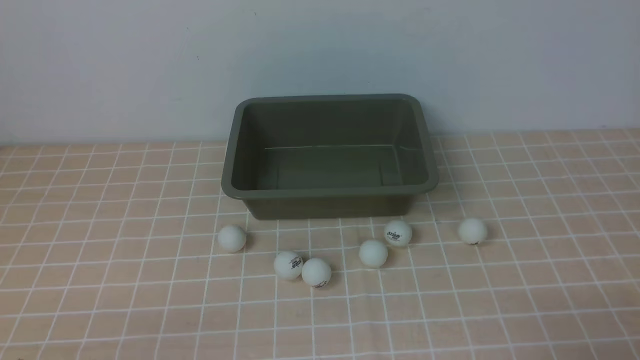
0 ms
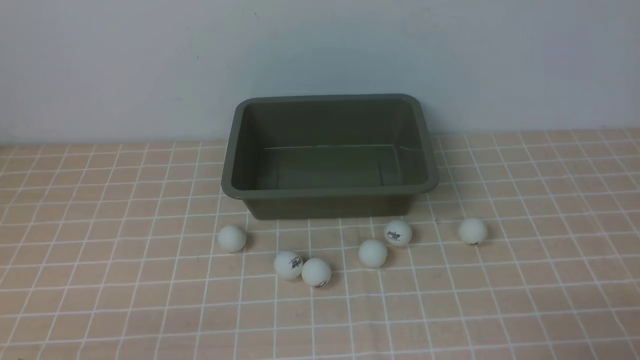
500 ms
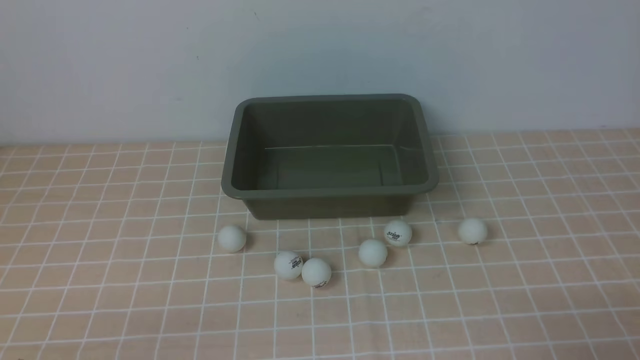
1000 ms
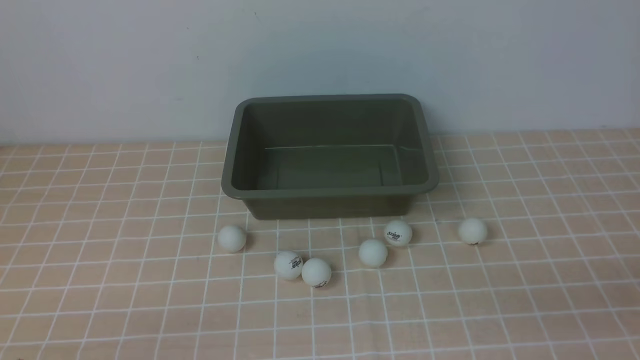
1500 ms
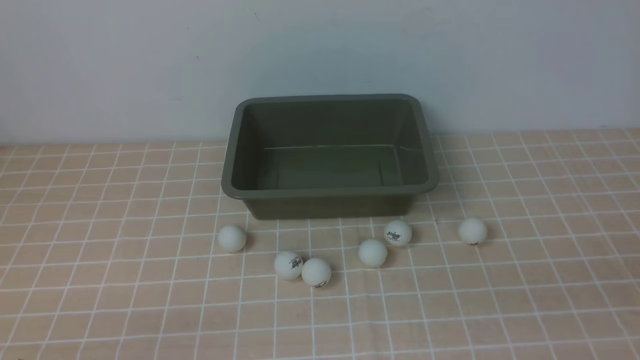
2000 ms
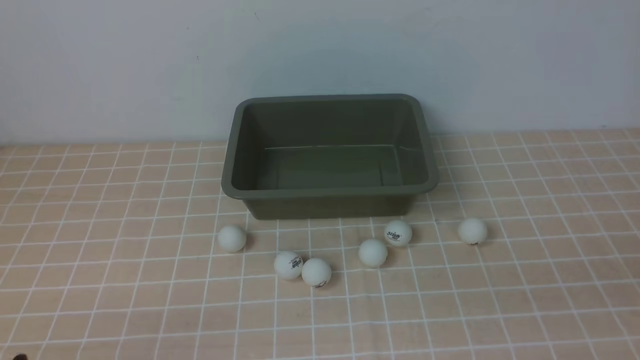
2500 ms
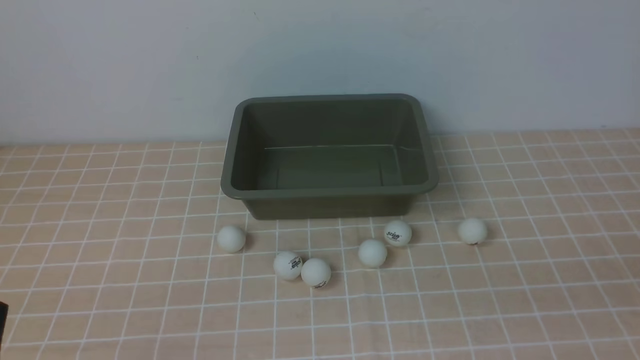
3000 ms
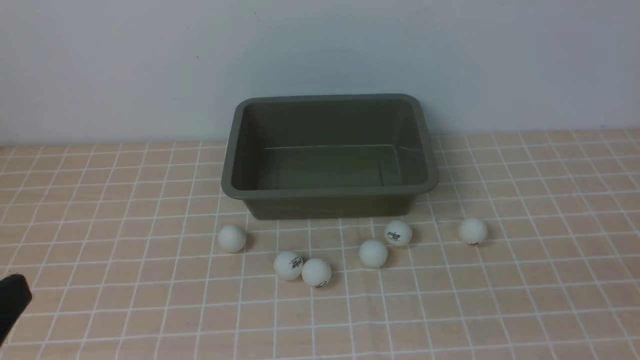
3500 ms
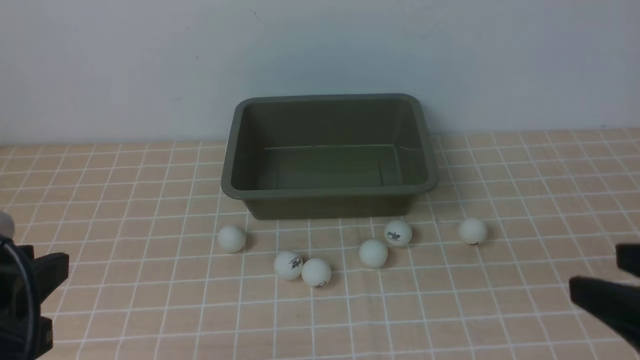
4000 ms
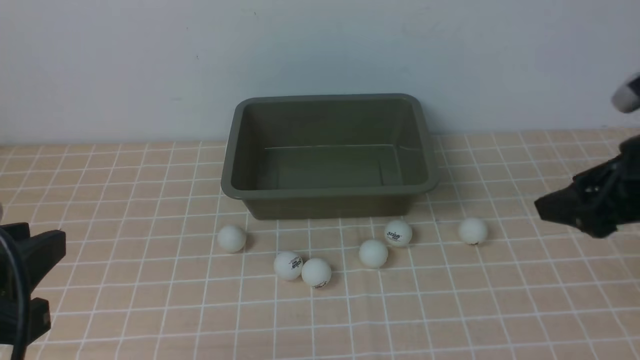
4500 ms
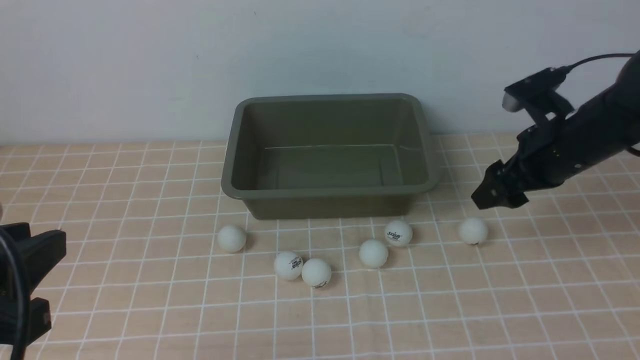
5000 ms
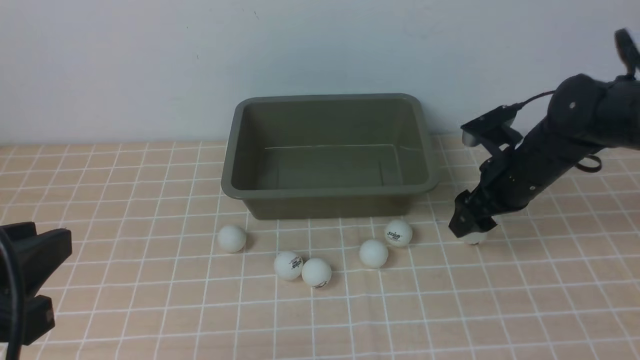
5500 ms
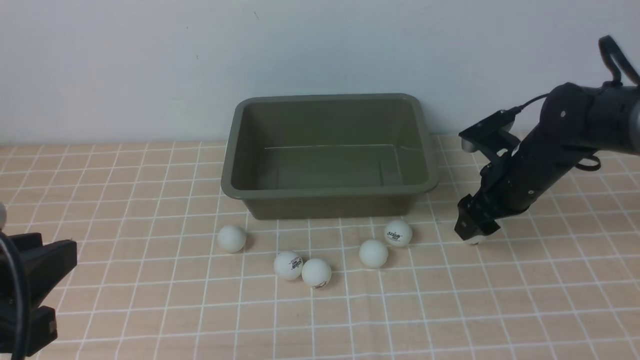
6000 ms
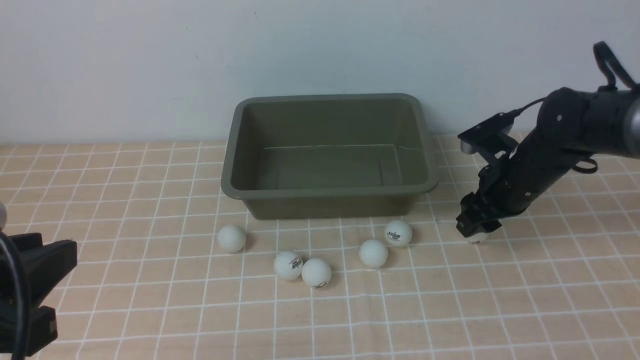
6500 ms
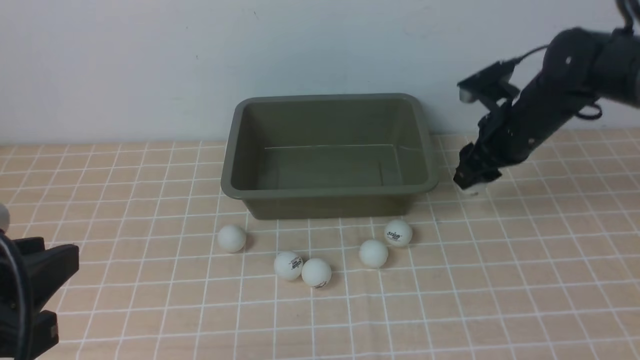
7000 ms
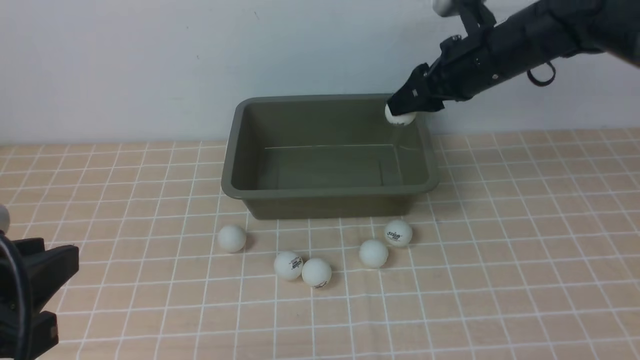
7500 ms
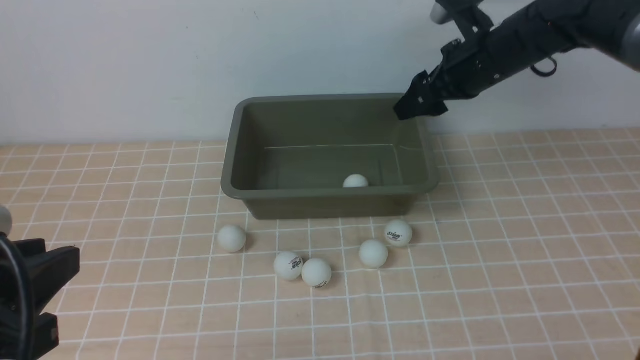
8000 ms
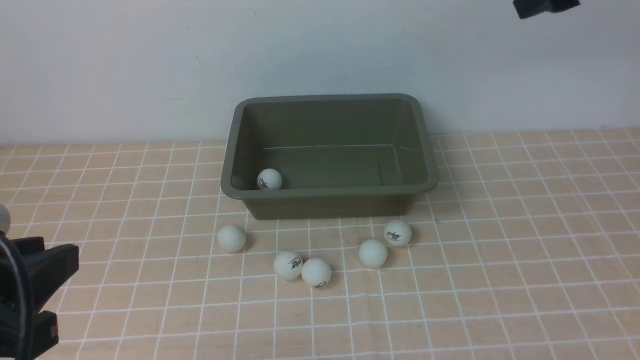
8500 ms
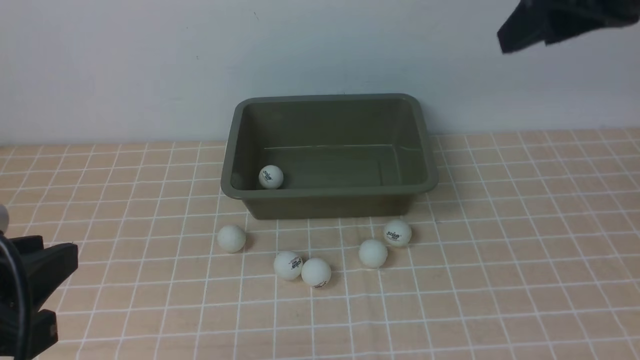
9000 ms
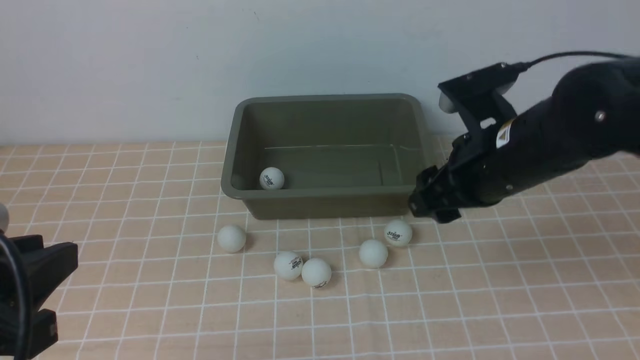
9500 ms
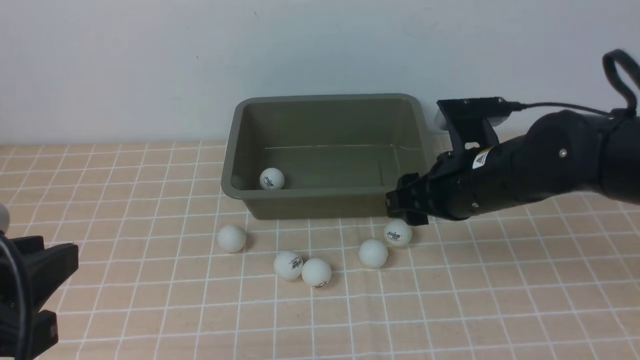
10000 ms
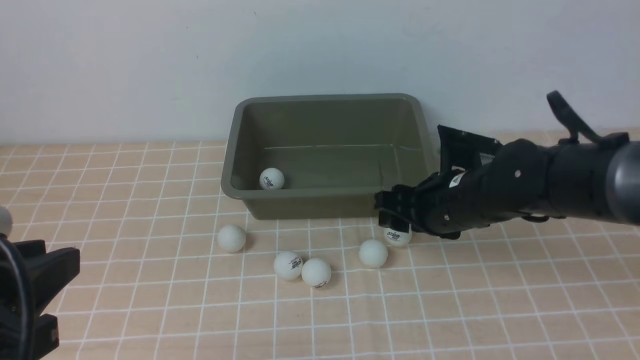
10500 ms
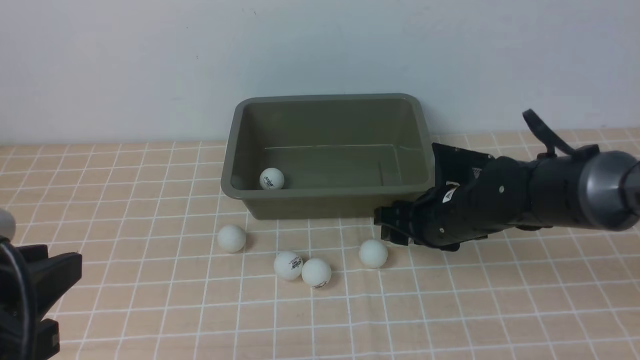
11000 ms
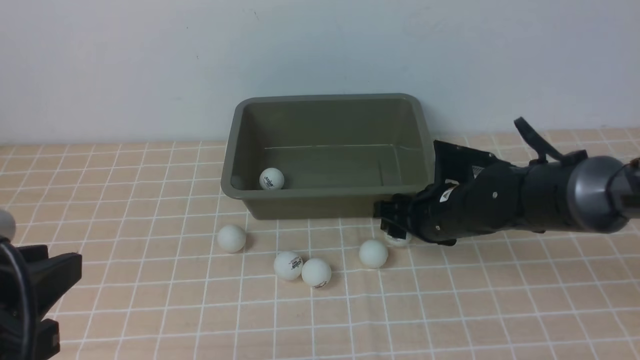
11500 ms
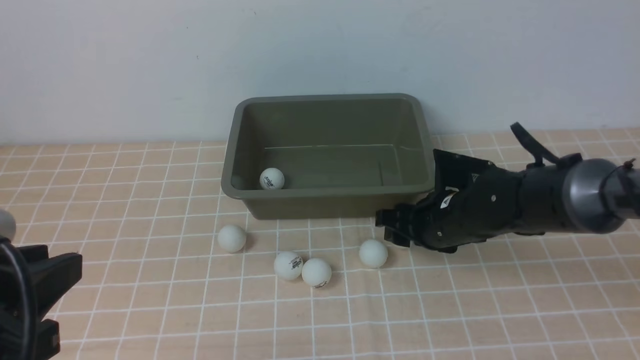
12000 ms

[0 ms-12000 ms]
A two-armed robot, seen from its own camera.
Step, 0 ms to 6500 ms: use the right arm to clamp the table tennis ball closest to it.
Step, 7000 ms to 8000 ms: use the right arm to put the table tennis ball into the box.
2000 ms to 4000 ms: The left gripper travels upward by approximately 15 cm; the right gripper shifts roughly 10 cm forward.
4000 ms to 6000 ms: The right gripper heads forward and downward, covering roughly 30 cm.
6000 ms to 8000 ms: The right gripper shifts approximately 15 cm upward and forward, and closes, then opens again.
8000 ms to 10000 ms: The right gripper shifts about 15 cm backward and downward.
10000 ms to 12000 ms: The right gripper heads downward, covering roughly 10 cm.

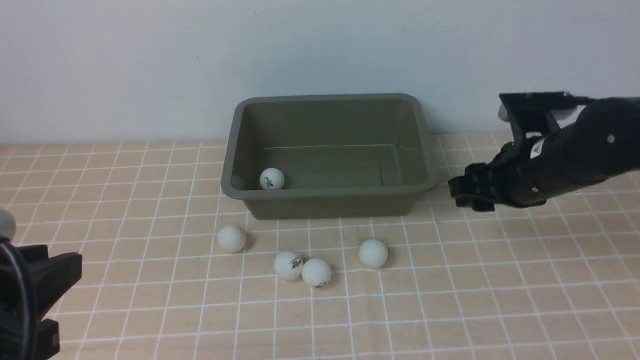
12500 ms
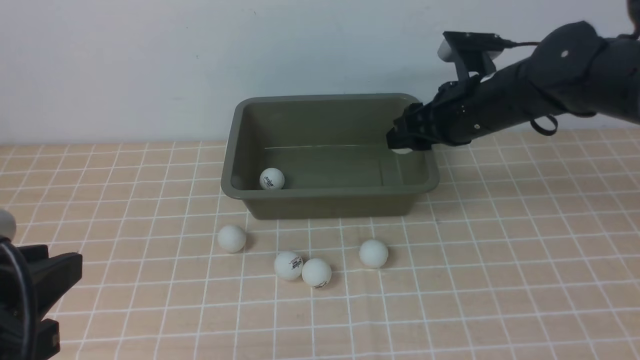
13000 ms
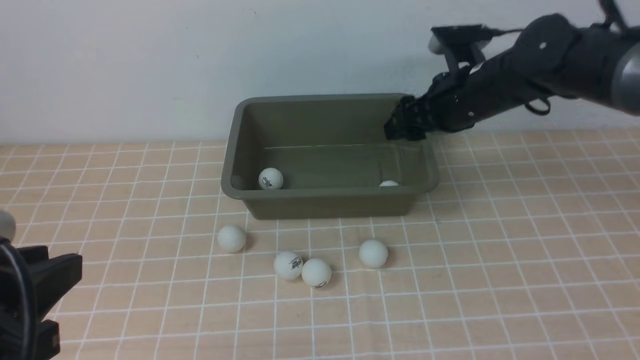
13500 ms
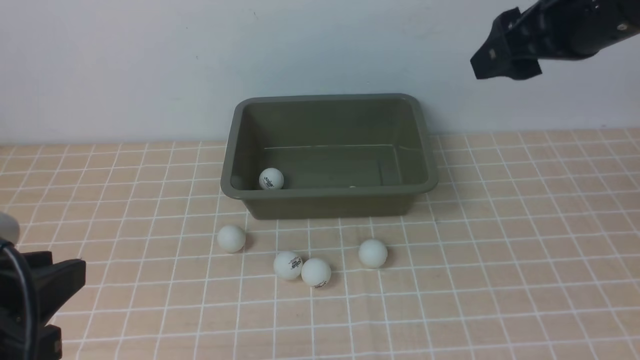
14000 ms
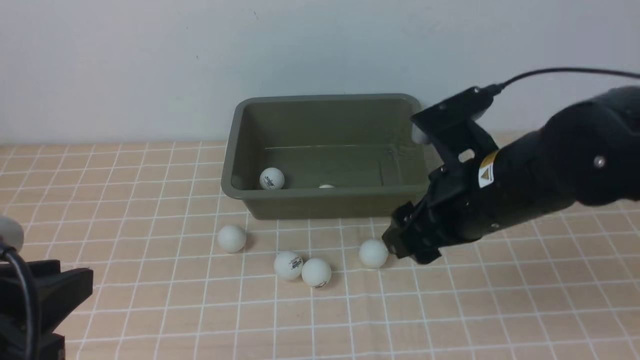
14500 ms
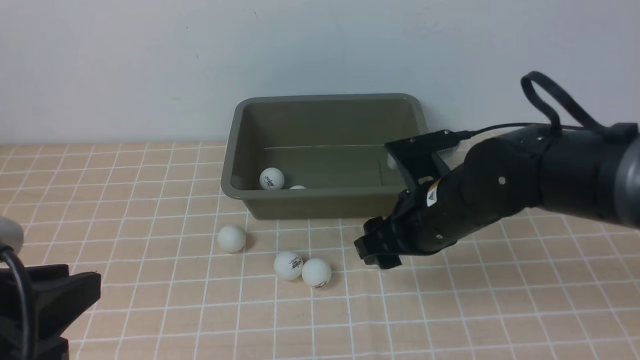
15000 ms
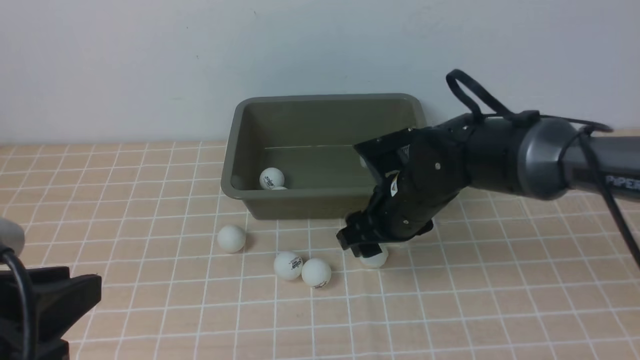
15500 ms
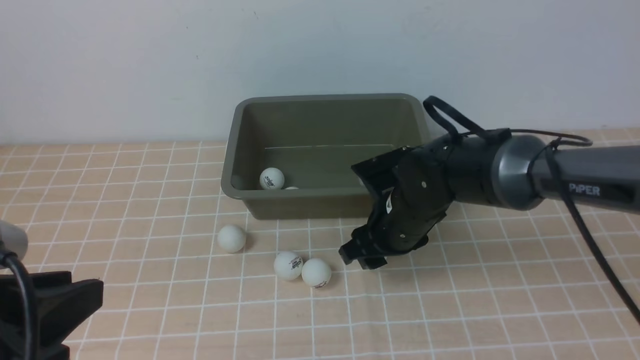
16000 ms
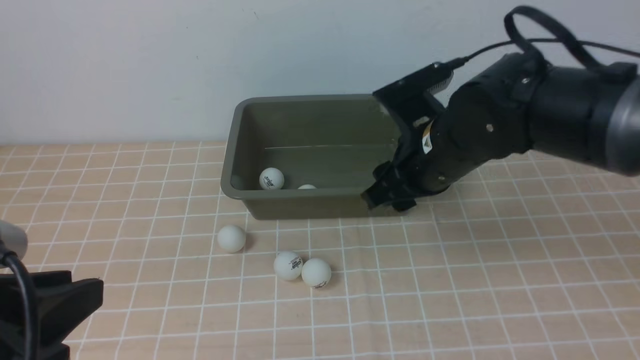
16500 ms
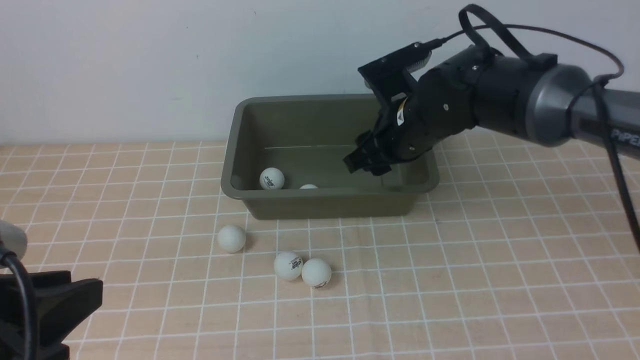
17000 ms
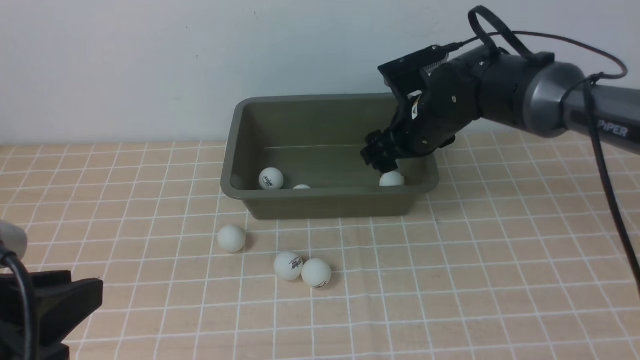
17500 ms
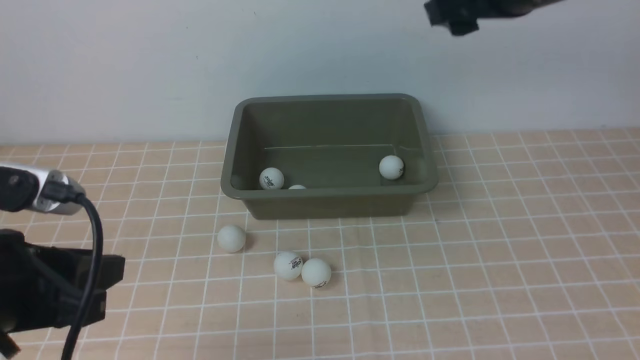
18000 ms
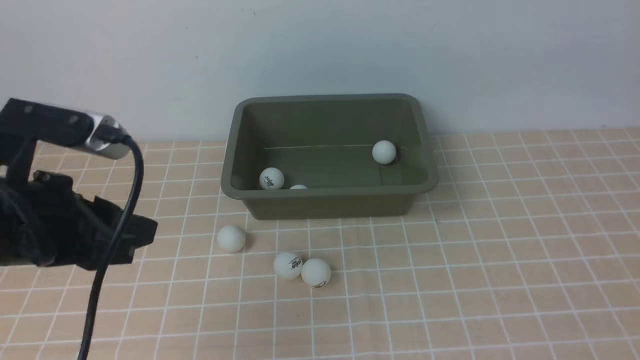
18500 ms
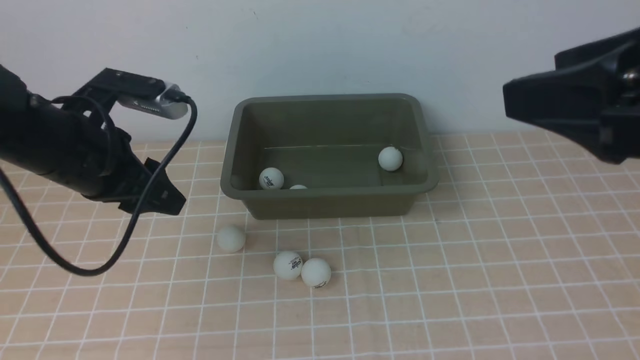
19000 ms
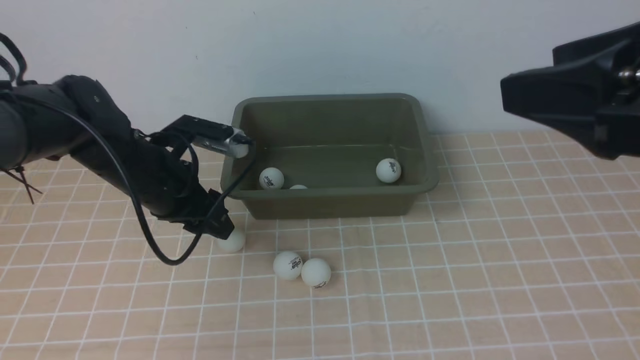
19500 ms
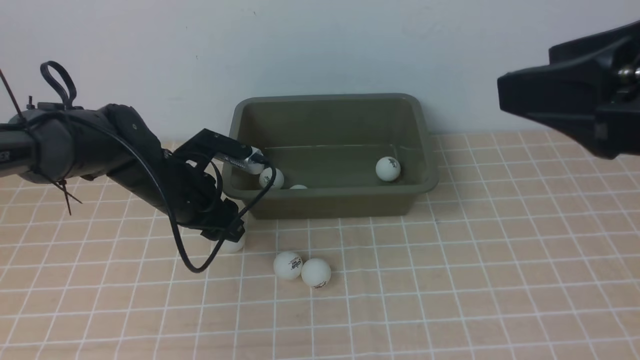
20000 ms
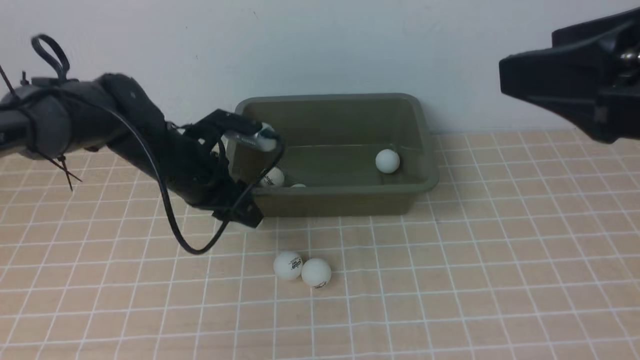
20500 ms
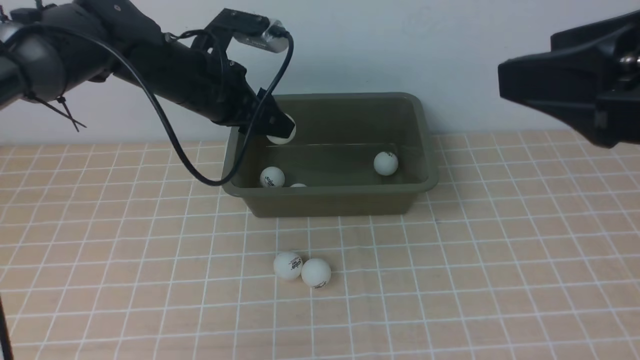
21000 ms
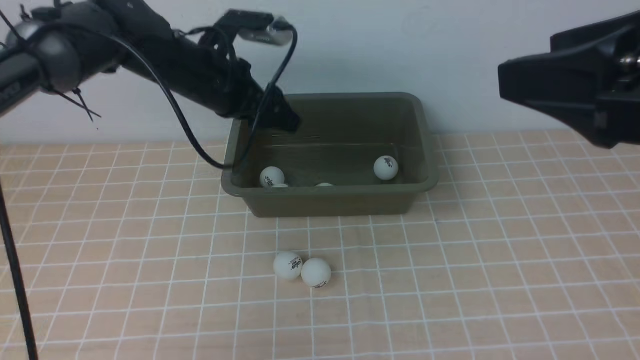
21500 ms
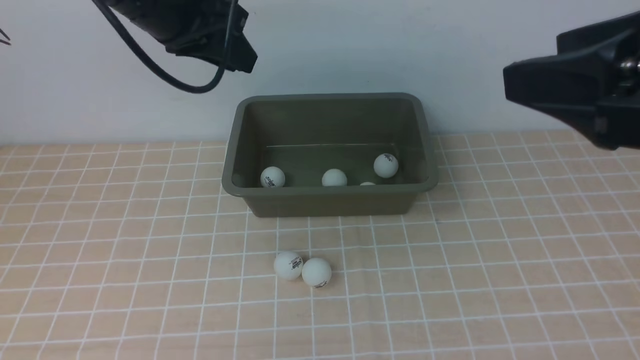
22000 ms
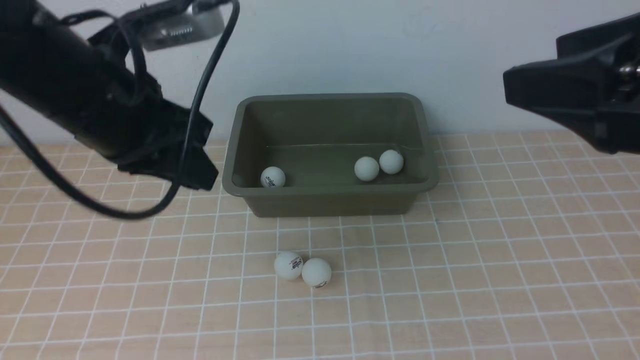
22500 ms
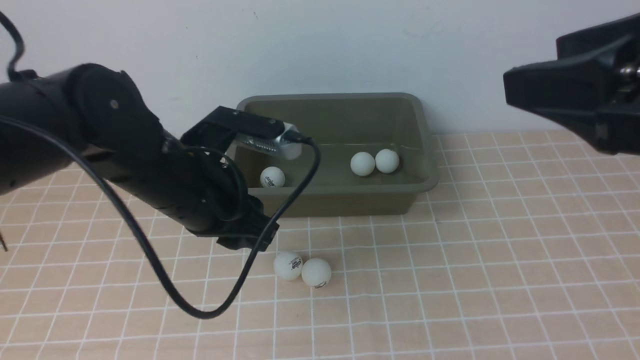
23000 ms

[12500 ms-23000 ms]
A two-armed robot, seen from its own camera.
Step, 13000 ms to 14000 ms: use the right arm to put the table tennis ball into the box.
Step, 14500 ms to 16500 ms: use the right arm to clamp the table tennis ball closest to it.
Step, 17000 ms to 18000 ms: use the right arm to put the table tennis ball into the box.
Step, 18500 ms to 20500 ms: use the left arm to clamp the table tennis ball closest to it.
12500 ms to 14500 ms: The right gripper heads backward and to the left, covering roughly 10 cm, goes upward and returns, some 15 cm each way, and opens up.
14500 ms to 16500 ms: The right gripper travels forward by some 5 cm, reaches approximately 10 cm downward, then returns, and closes.
16500 ms to 19000 ms: The left gripper moves forward, about 20 cm, while the right gripper travels upward, backward and to the right by some 25 cm, and opens its fingers.
19000 ms to 21000 ms: The left gripper is displaced forward and to the right by approximately 15 cm.
21000 ms to 23000 ms: The left gripper moves backward, roughly 15 cm.
